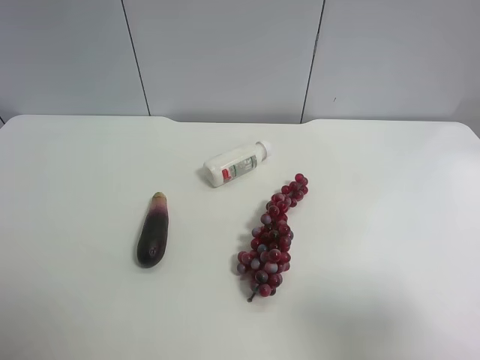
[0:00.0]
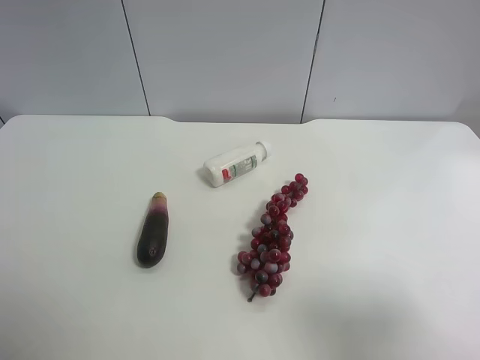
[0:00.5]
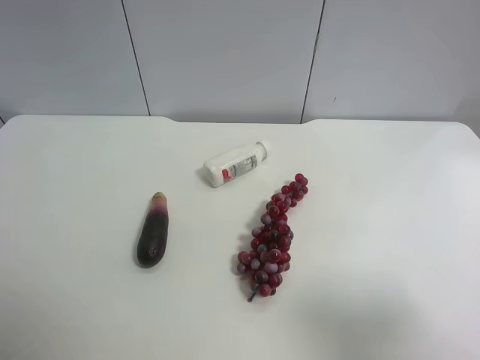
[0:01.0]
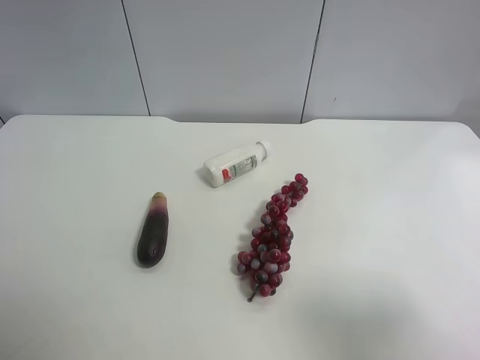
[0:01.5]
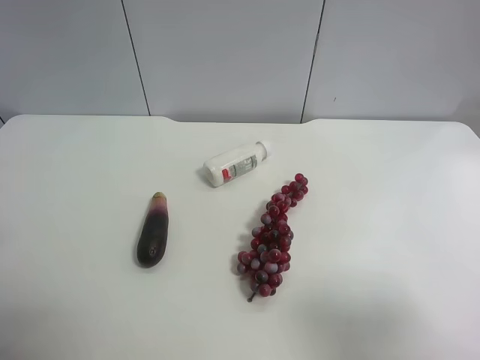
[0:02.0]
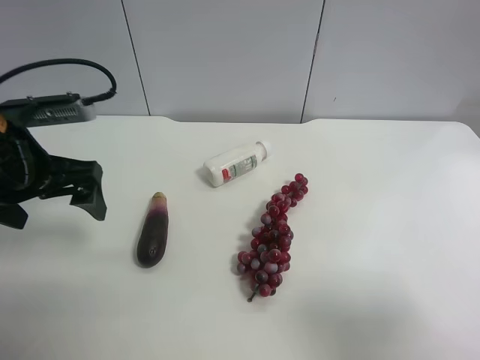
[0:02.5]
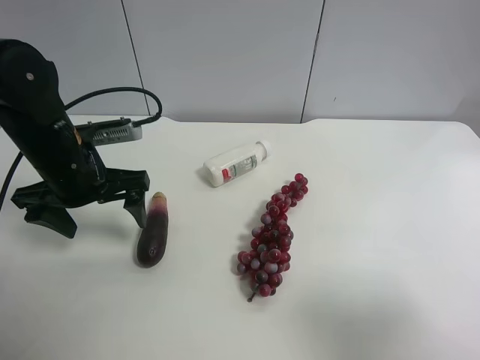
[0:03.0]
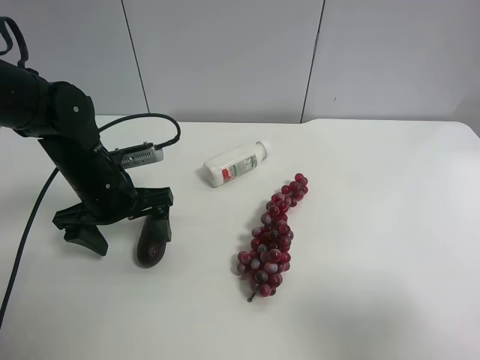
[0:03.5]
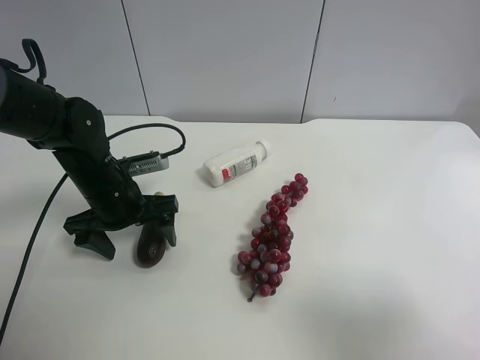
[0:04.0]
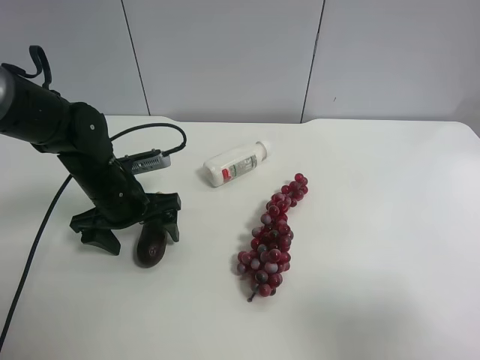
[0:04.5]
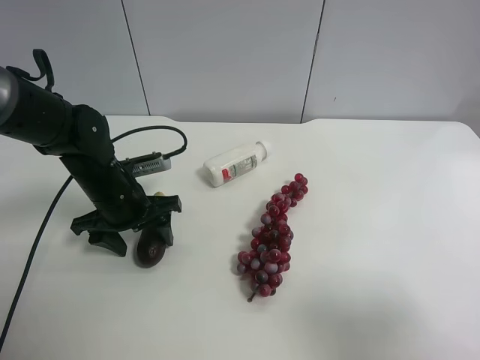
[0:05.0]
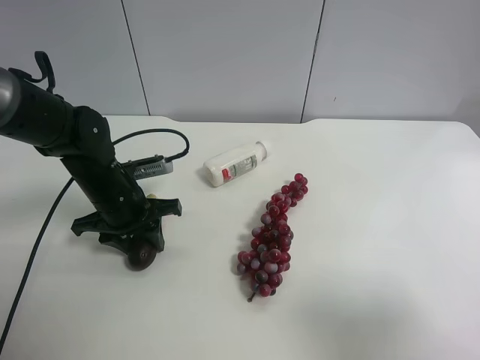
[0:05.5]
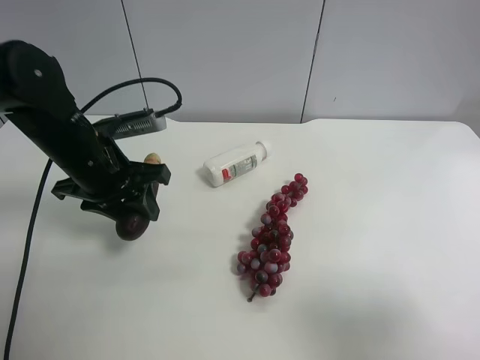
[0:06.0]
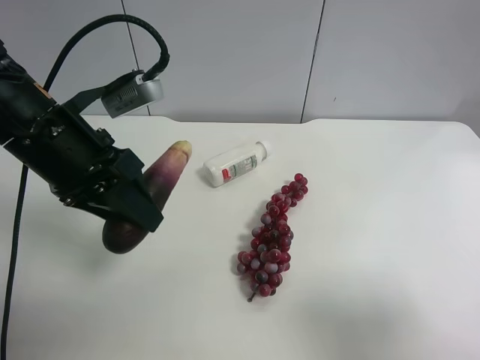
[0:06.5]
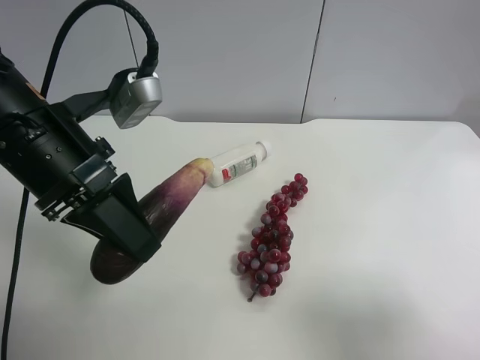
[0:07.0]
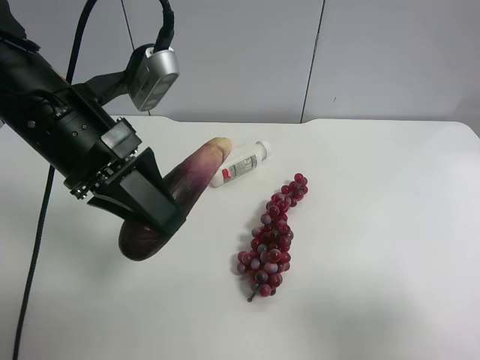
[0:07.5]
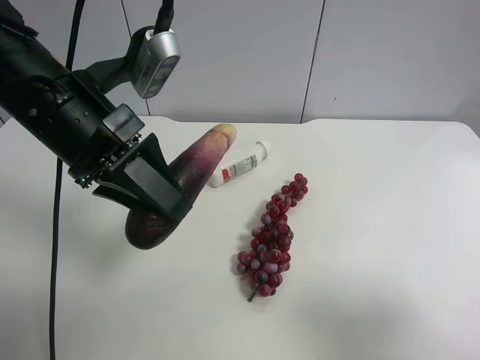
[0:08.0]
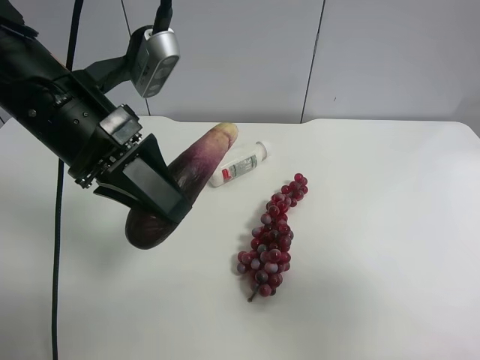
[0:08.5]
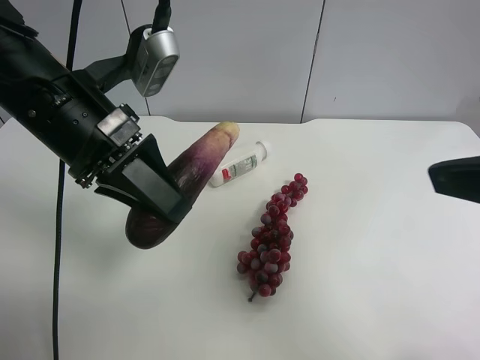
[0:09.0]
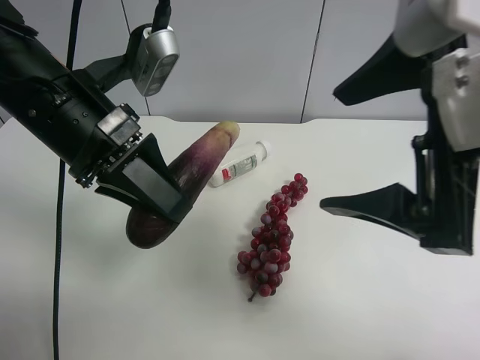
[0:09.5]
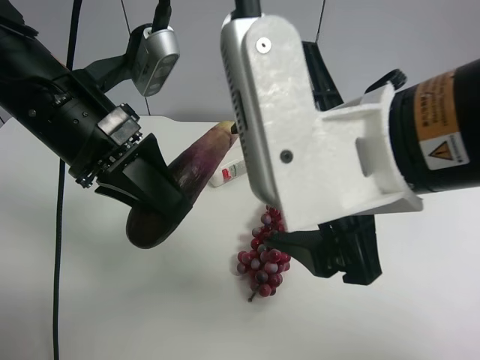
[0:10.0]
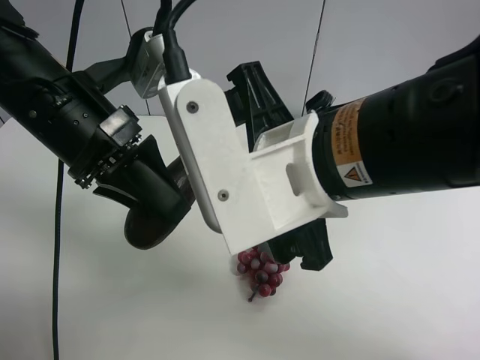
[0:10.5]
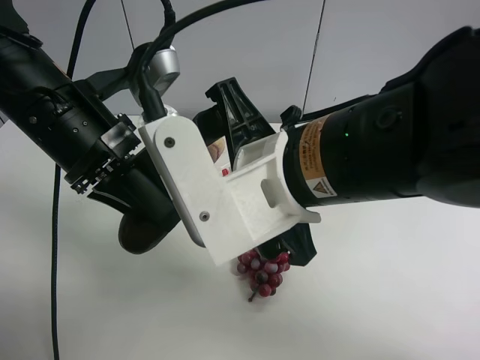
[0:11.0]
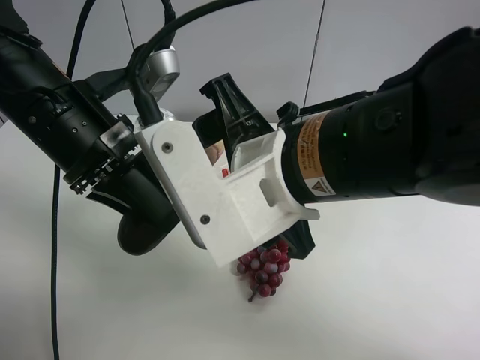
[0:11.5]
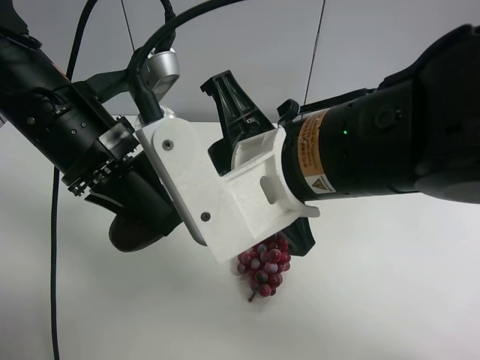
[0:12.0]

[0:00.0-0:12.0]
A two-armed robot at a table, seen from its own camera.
Task of the whole recording: use the left gripper to pick up the item and transfer it from the left gripper to the right gripper.
0:02.0 to 0:04.0: The left gripper moves downward, to the right and forward, approximately 25 cm.
0:04.0 to 0:06.0: The left gripper travels upward by roughly 10 cm, and closes its fingers.
0:06.0 to 0:08.0: The left gripper travels upward by some 10 cm.
0:08.0 to 0:10.0: The right gripper heads to the left and forward, covering about 25 cm.
0:10.0 to 0:12.0: The right gripper changes place by approximately 5 cm, and closes.

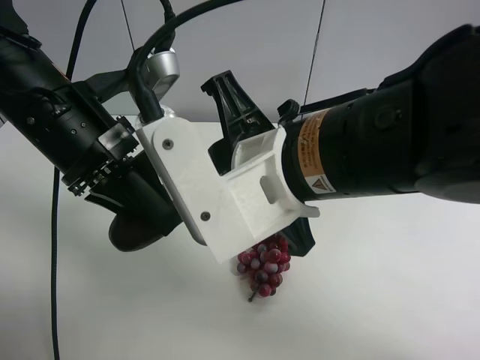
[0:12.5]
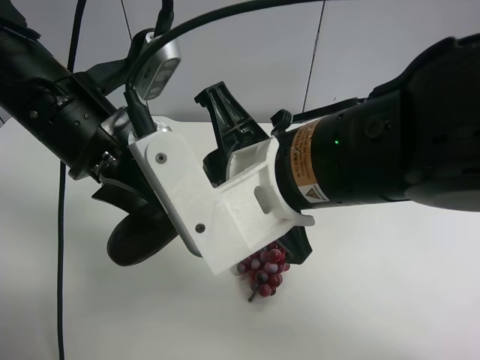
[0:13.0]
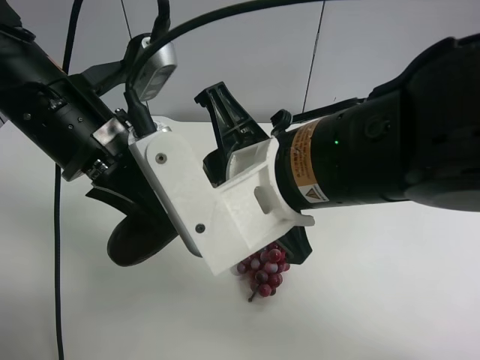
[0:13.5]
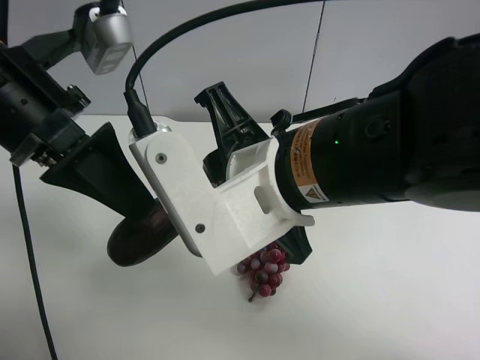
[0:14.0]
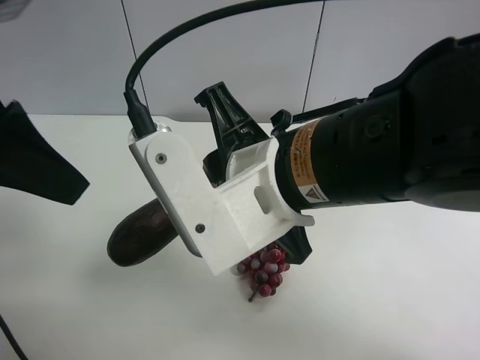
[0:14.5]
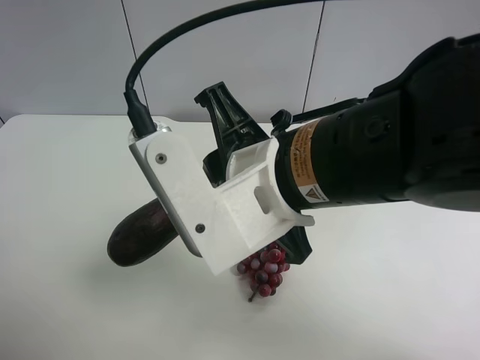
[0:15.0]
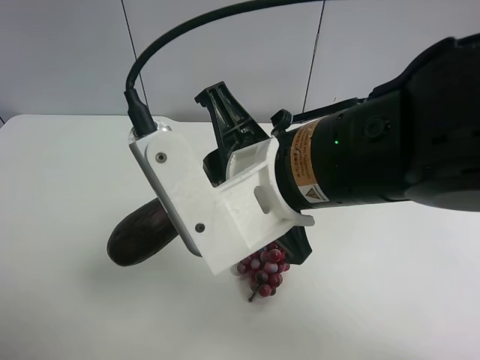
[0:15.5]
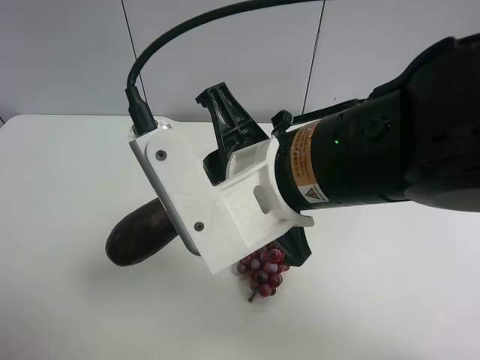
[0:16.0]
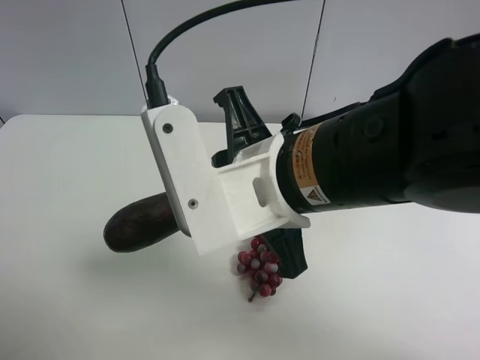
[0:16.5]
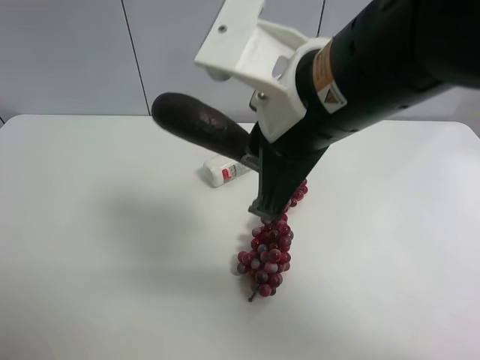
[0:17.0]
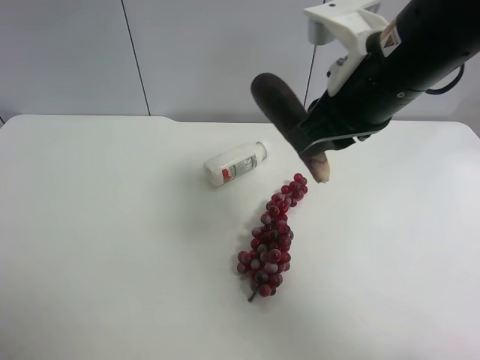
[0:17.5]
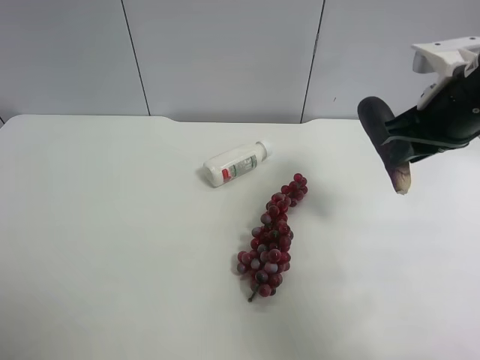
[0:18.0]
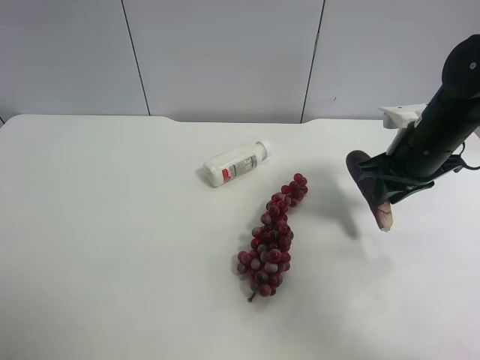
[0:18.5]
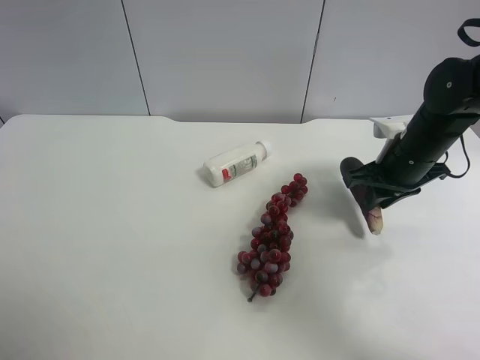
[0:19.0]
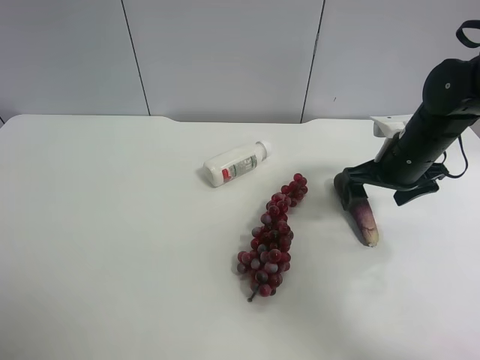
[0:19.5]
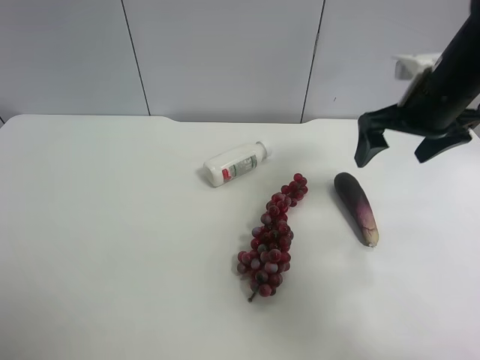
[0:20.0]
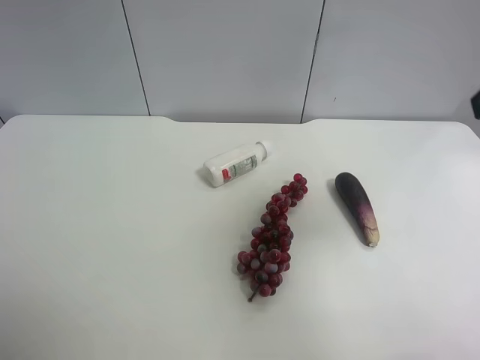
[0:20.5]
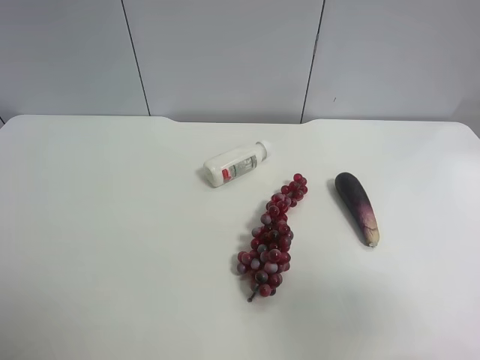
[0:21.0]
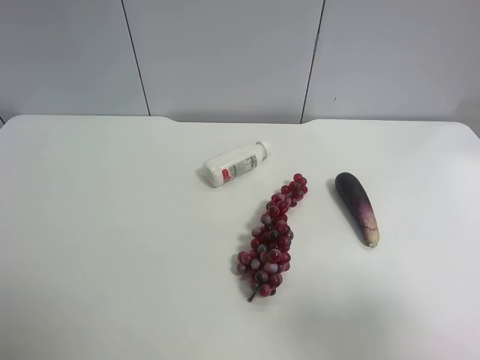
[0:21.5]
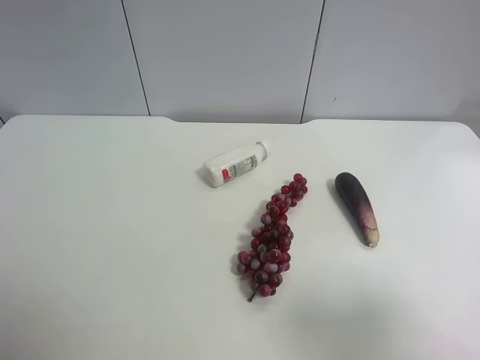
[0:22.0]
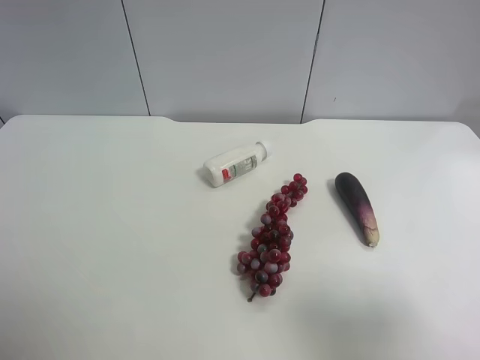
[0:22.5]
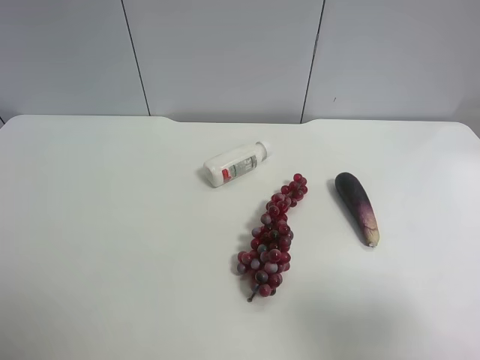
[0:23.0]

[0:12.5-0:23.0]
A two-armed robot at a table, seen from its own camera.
Task of the whole recording: use the left gripper to pick up the item and transfer it from the left gripper to the right gripper.
0:12.5 to 0:14.5: The left gripper moves upward, to the left and backward, approximately 10 cm, and opens its fingers.
0:14.5 to 0:16.5: The left gripper is displaced backward and to the left by approximately 20 cm.
0:16.5 to 0:19.0: The right gripper goes about 30 cm to the right, forward and downward.
0:19.0 to 0:21.0: The right gripper travels backward and upward by roughly 35 cm, and opens.

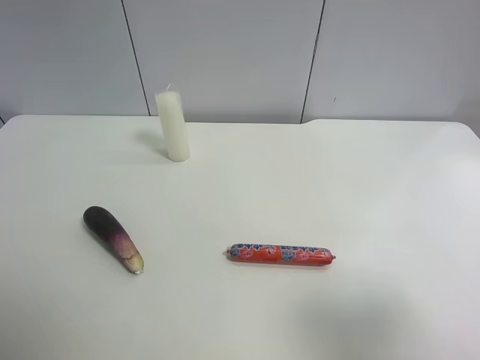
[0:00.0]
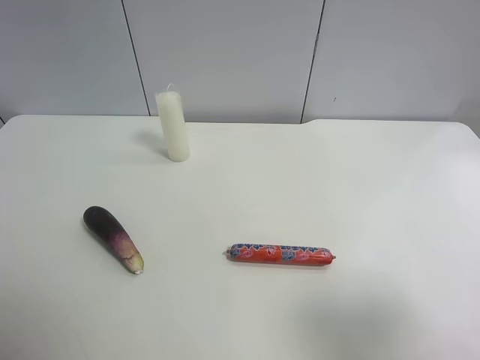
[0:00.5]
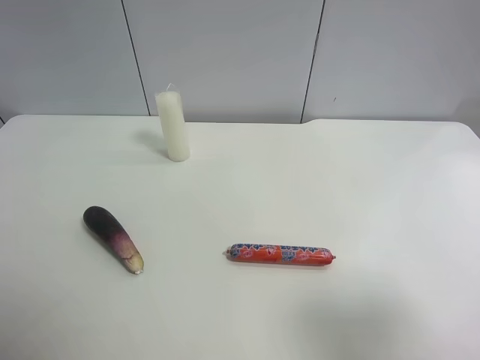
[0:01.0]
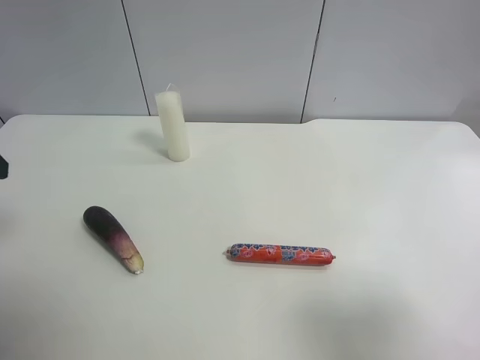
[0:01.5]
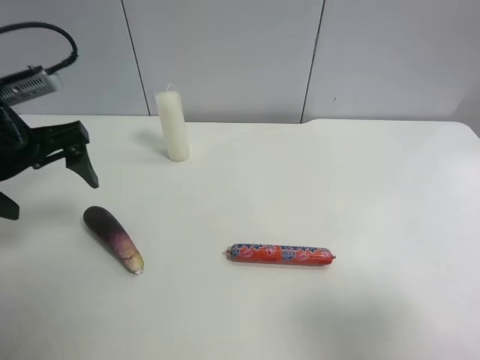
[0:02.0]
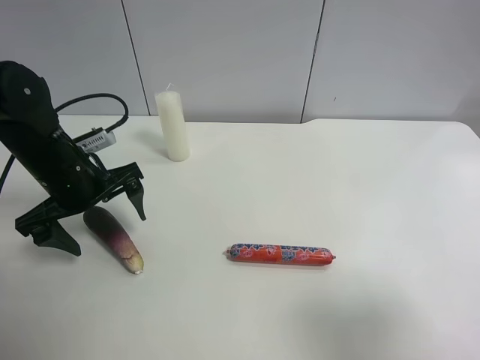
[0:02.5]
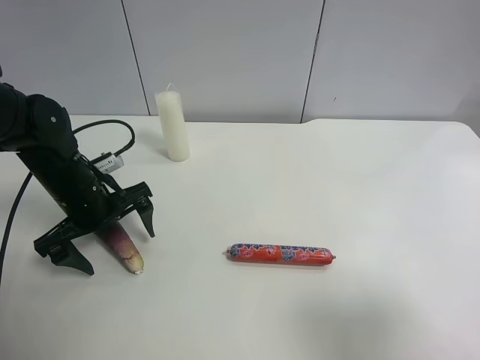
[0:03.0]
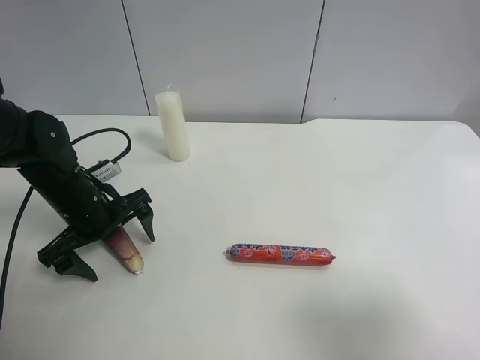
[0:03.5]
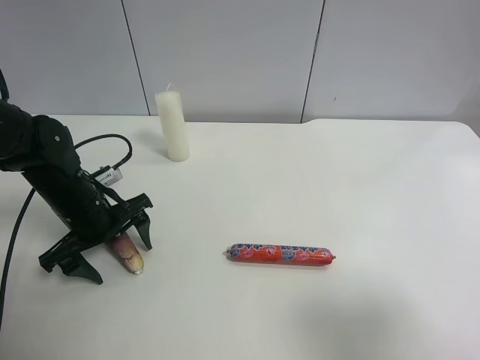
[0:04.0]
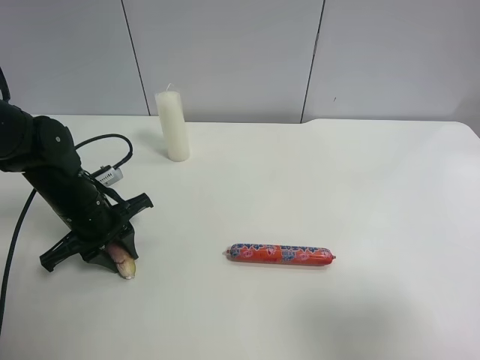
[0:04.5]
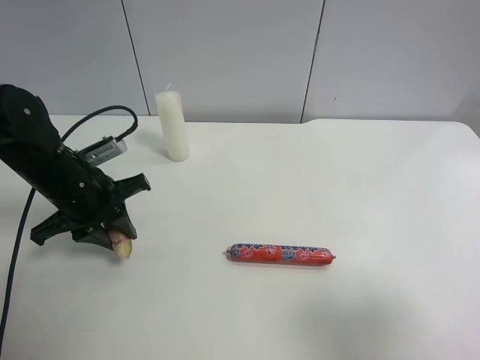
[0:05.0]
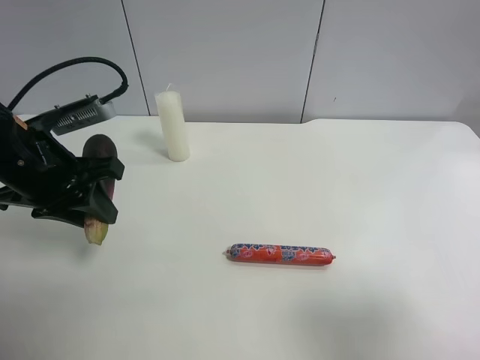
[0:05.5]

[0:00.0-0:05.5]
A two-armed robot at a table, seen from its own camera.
Task of the whole recording: use the left gripper to pick up the item and transfer it from the left gripper to the right gripper.
0:00.0 to 0:02.0: The left gripper travels forward by roughly 25 cm.
0:02.0 to 0:03.5: The left gripper travels downward by some 15 cm.
0:03.5 to 0:05.5: The left gripper is displaced upward by approximately 10 cm, and closes its fingers.
